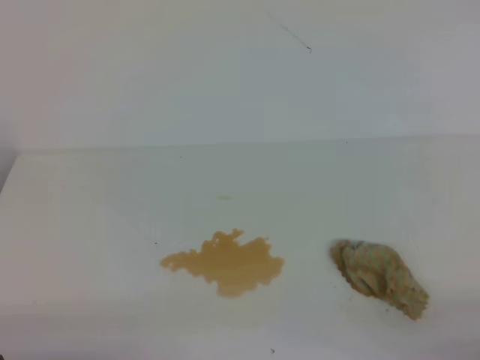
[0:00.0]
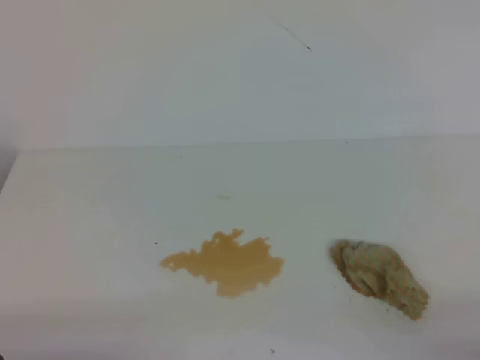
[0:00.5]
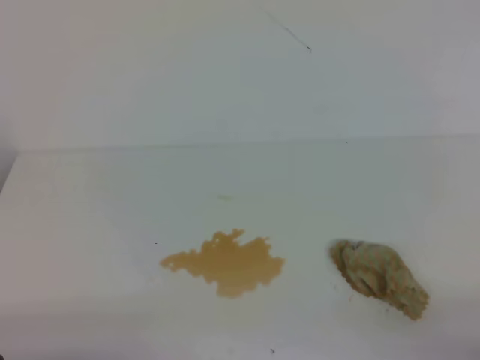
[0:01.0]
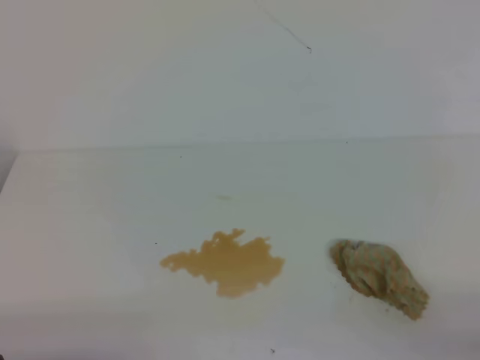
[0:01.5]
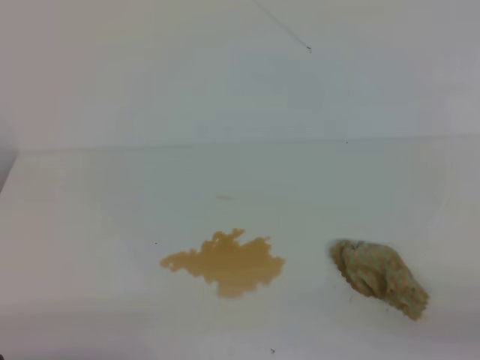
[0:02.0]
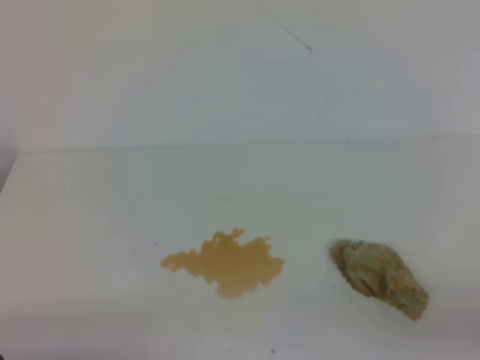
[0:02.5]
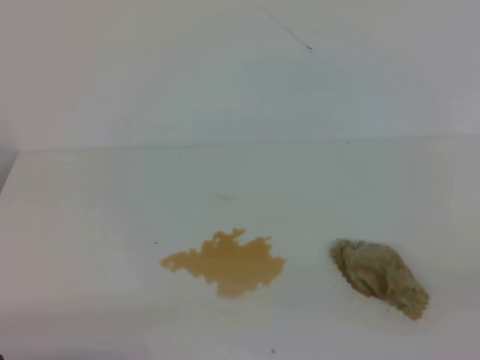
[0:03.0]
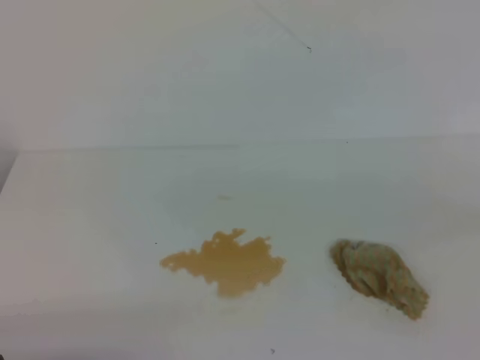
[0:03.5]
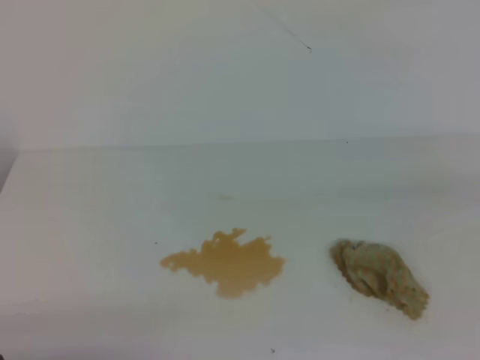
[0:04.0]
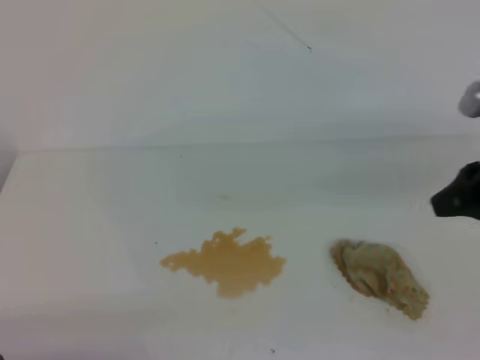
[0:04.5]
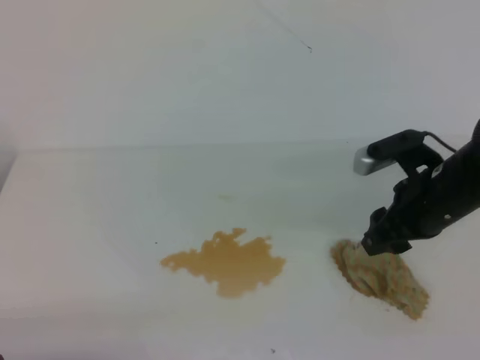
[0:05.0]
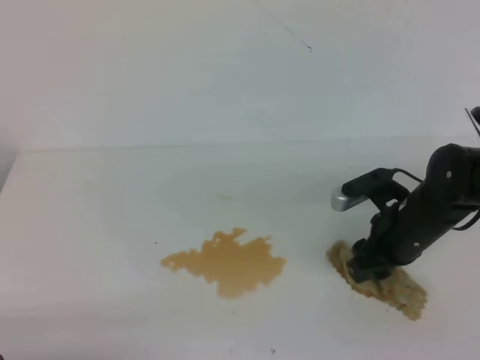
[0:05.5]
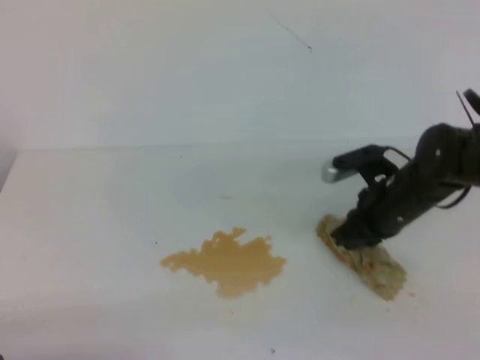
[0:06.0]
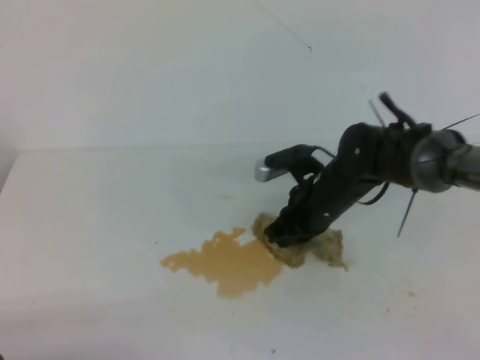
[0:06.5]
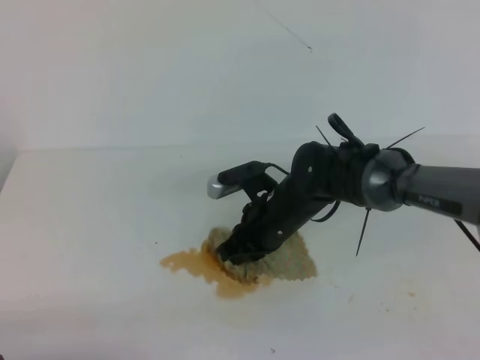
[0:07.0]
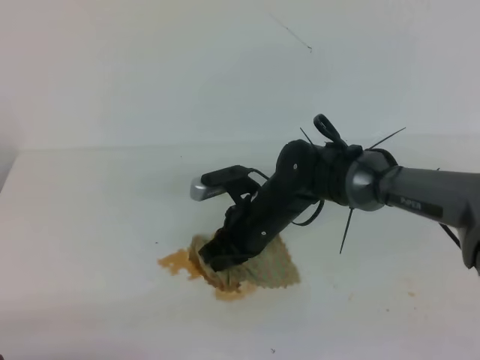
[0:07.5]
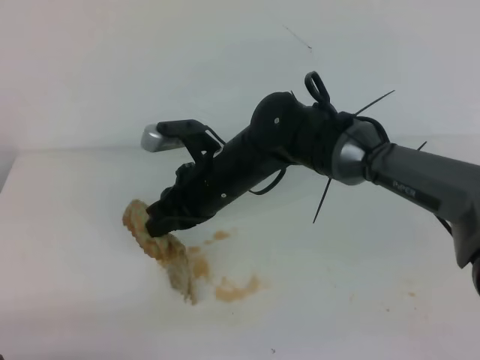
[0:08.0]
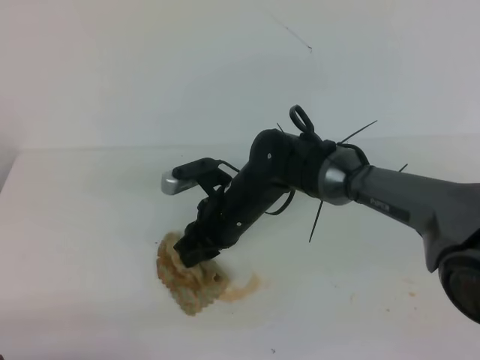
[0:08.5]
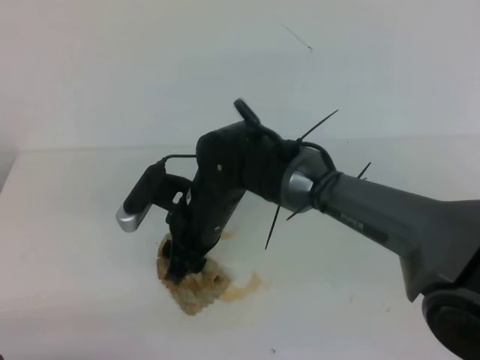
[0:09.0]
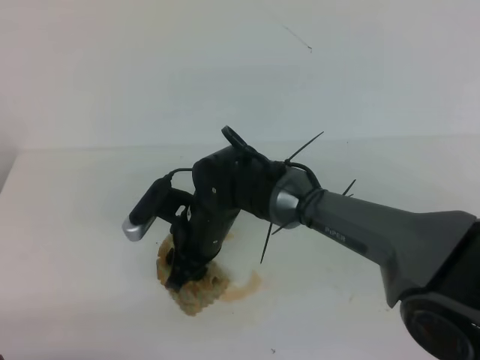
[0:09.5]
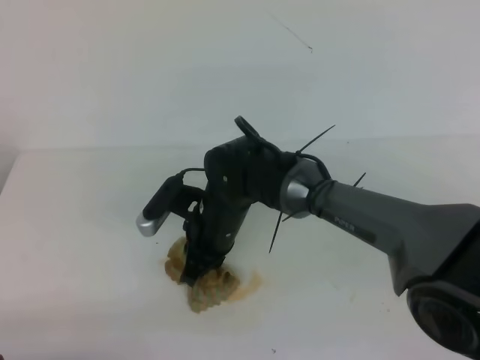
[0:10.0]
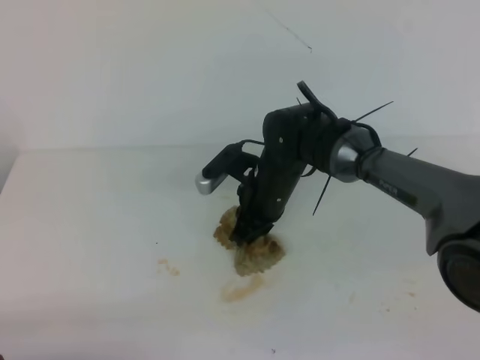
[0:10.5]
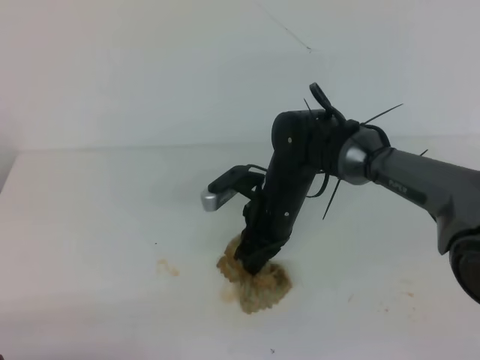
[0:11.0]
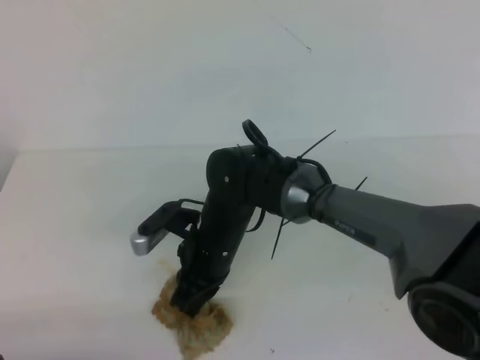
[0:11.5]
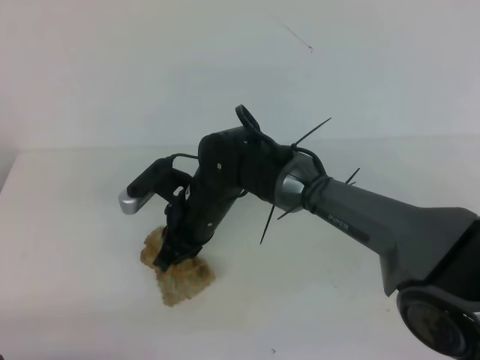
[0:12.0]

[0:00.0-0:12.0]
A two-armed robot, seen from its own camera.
0:04.0 to 0:06.0: The right gripper travels forward, downward and to the left by roughly 30 cm, and opens, then closes once more.
0:06.0 to 0:08.0: The right gripper travels to the left by roughly 20 cm.
0:08.0 to 0:10.0: The right gripper moves downward, some 5 cm, and opens, then closes again.
0:10.0 to 0:12.0: The right gripper moves approximately 5 cm to the right and comes back.

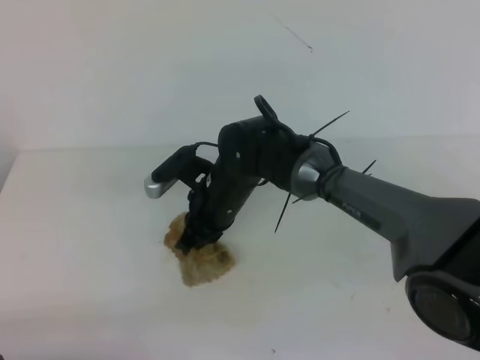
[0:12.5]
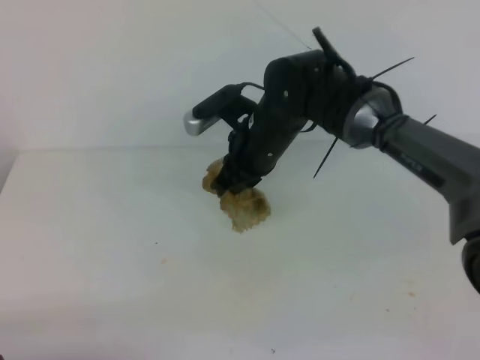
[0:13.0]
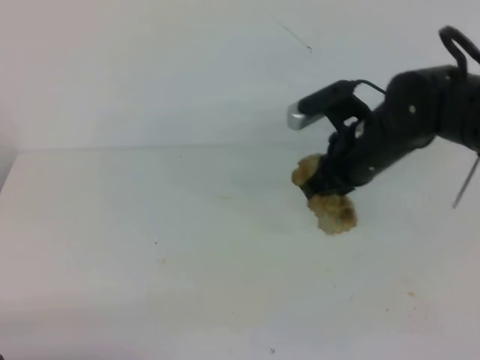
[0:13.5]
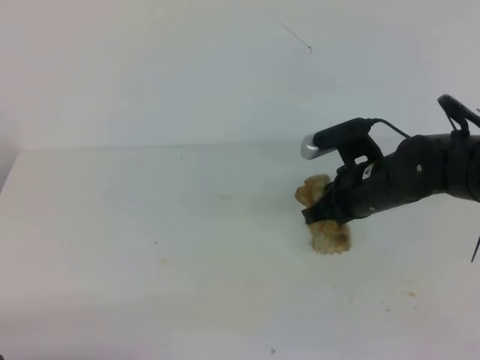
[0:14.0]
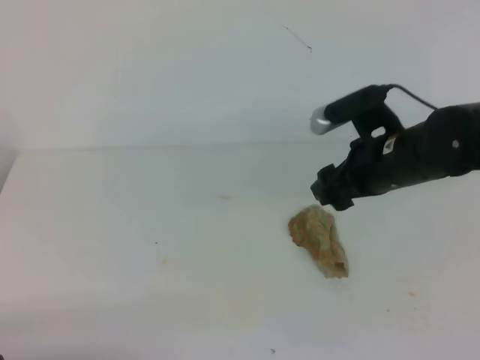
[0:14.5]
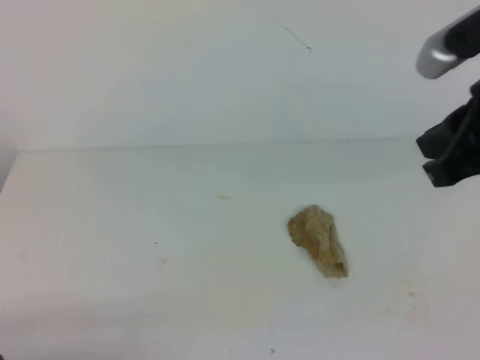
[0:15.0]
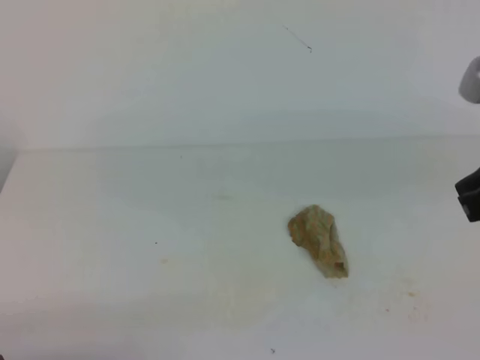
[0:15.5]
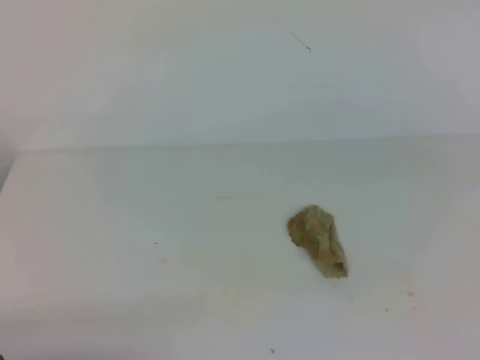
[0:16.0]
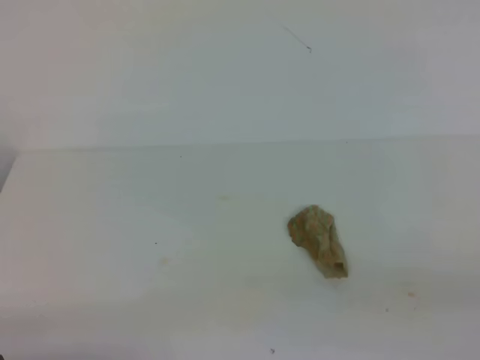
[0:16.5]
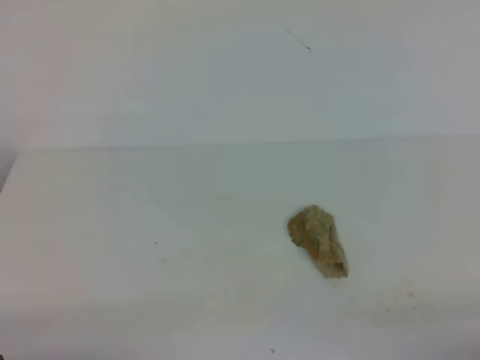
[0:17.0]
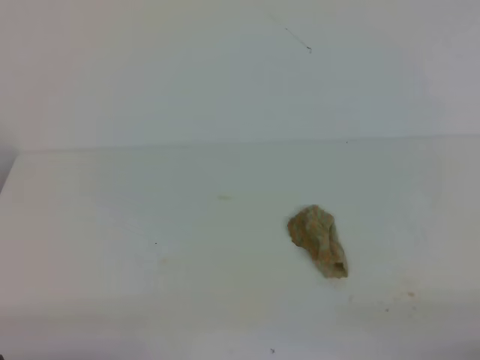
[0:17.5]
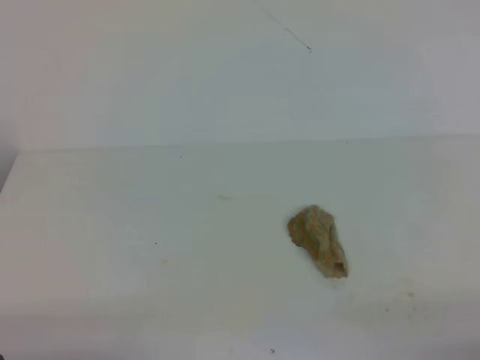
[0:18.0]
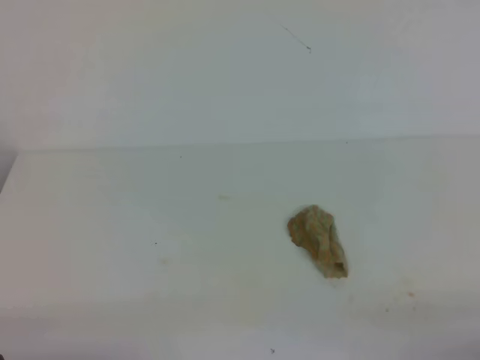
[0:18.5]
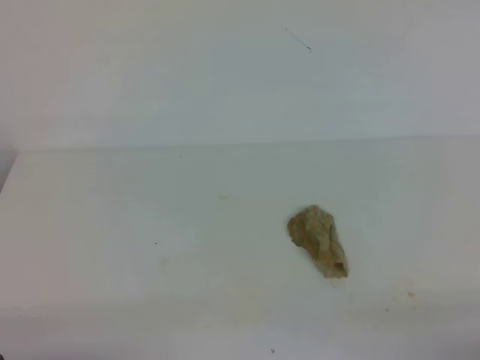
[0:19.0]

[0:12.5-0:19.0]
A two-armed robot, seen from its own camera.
0:12.5 to 0:14.5: The right gripper goes roughly 20 cm to the right and upward, and opens.
0:14.5 to 0:17.0: The right gripper travels backward and to the right by some 35 cm, and closes.
0:17.0 to 0:19.0: Both grippers stay about where they are.
